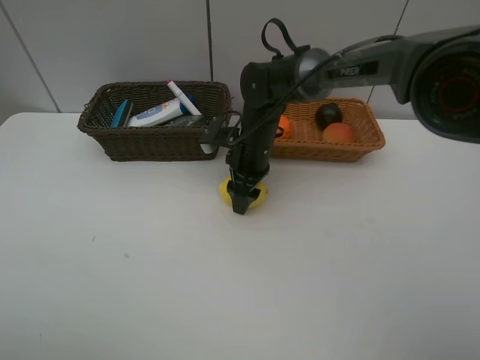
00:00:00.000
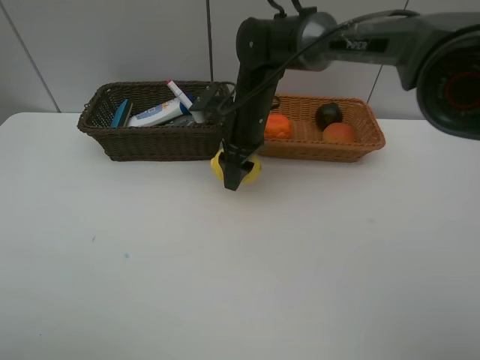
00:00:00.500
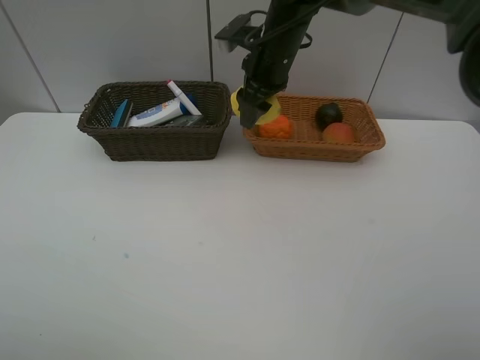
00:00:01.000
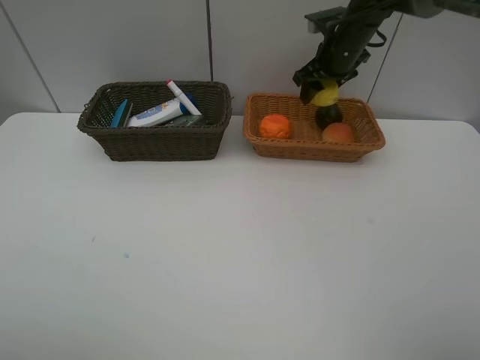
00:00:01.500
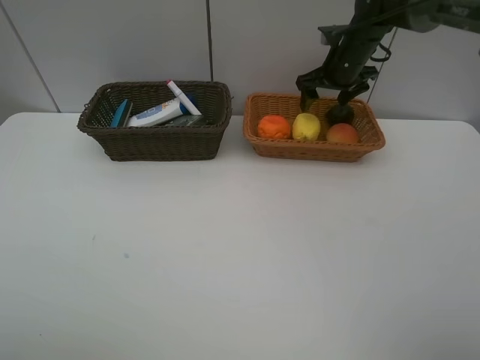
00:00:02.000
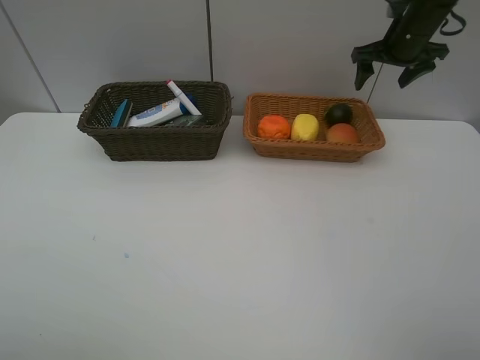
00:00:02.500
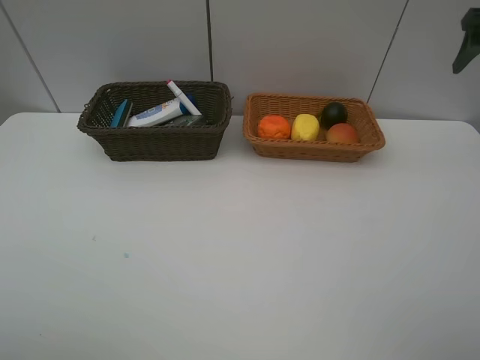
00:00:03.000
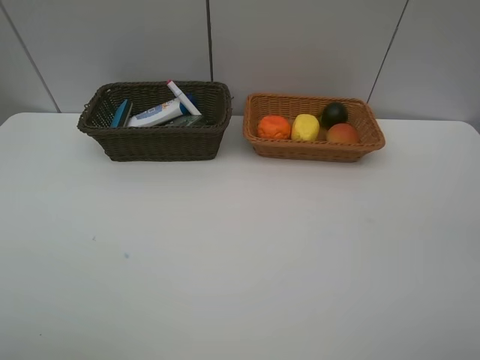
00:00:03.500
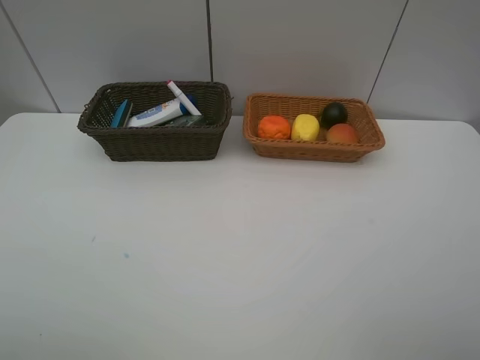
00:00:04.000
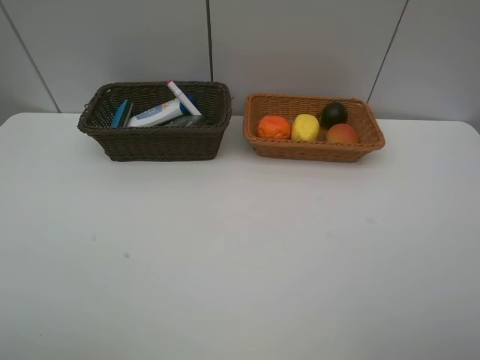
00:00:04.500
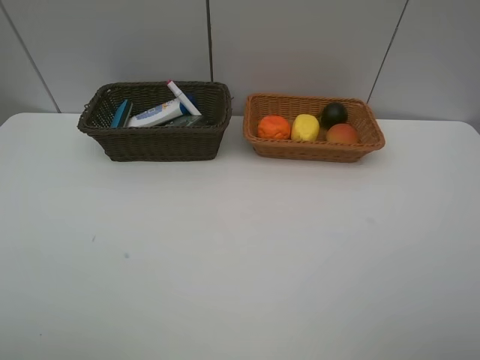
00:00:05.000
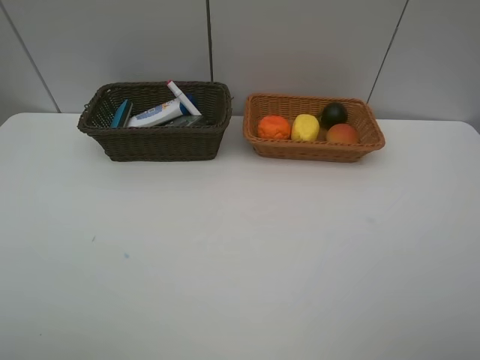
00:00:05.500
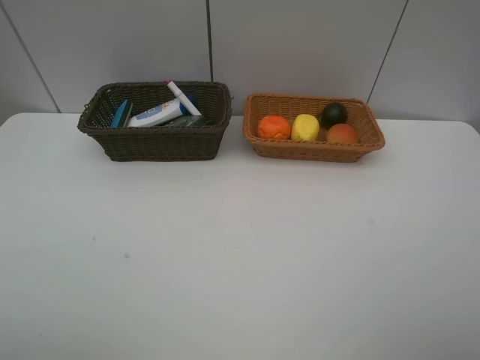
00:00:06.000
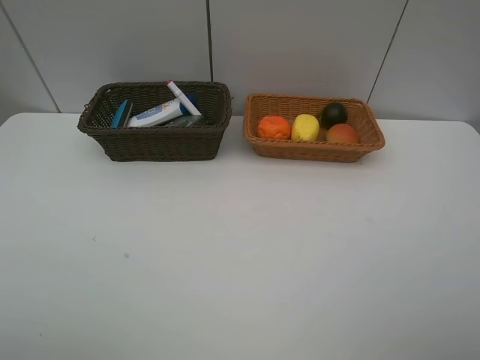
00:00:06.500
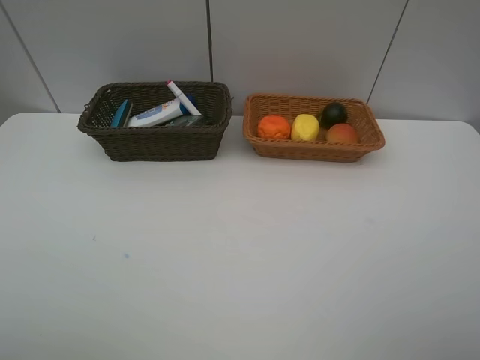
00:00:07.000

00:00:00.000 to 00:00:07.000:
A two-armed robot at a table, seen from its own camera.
Task of the whole recording: Place multiple objects separately in different baskets.
Step, 00:00:01.000 to 00:00:01.500: Place the lemon in the light basket with right gripper.
00:00:00.000 to 00:00:02.000: The right gripper shifts about 25 cm to the right, forward and upward.
00:00:02.000 to 00:00:03.500: The right gripper heads backward, upward and to the right, covering about 40 cm.
00:00:05.000 to 00:00:07.000: The two grippers keep their place.

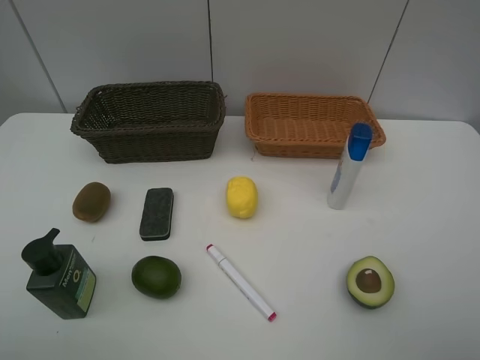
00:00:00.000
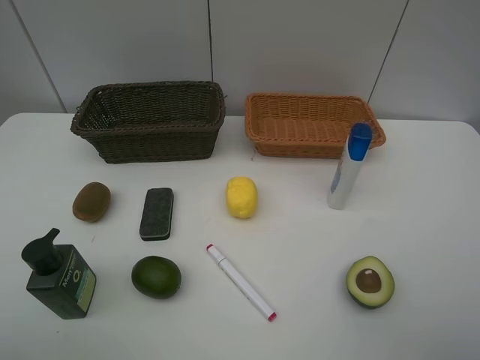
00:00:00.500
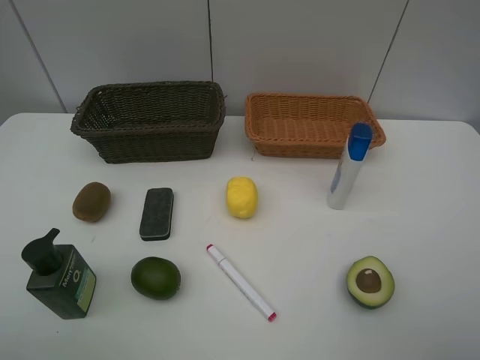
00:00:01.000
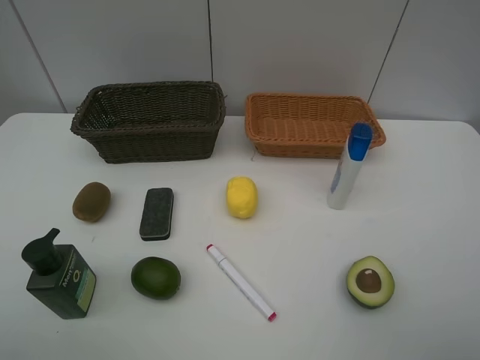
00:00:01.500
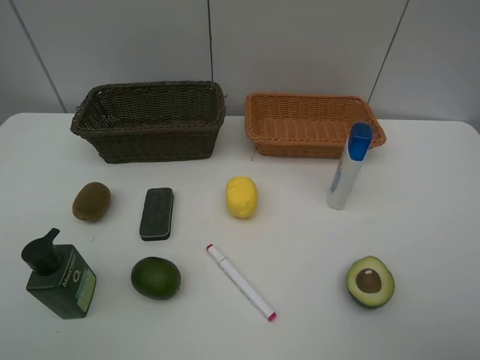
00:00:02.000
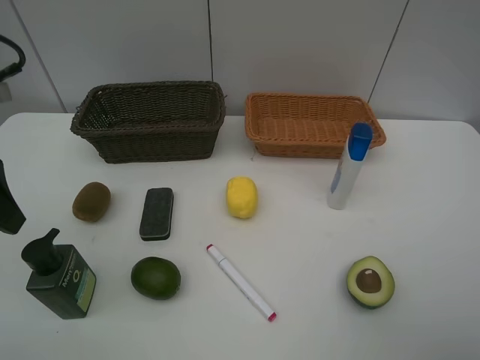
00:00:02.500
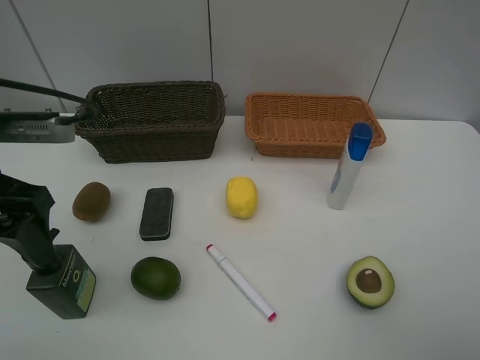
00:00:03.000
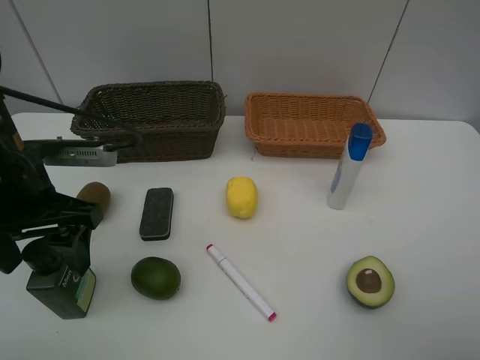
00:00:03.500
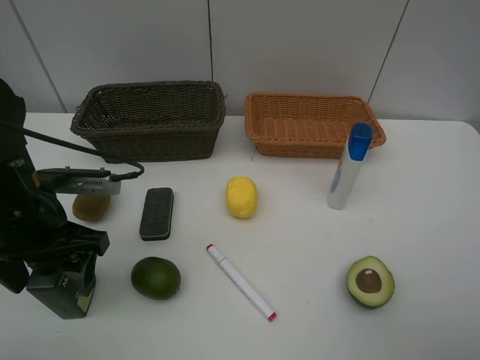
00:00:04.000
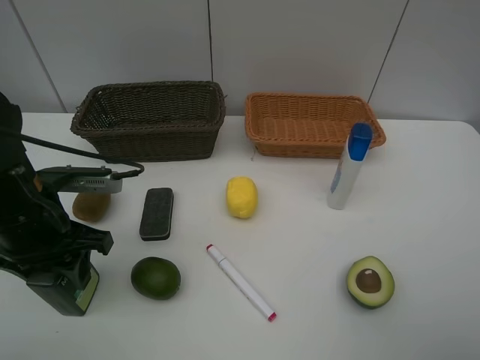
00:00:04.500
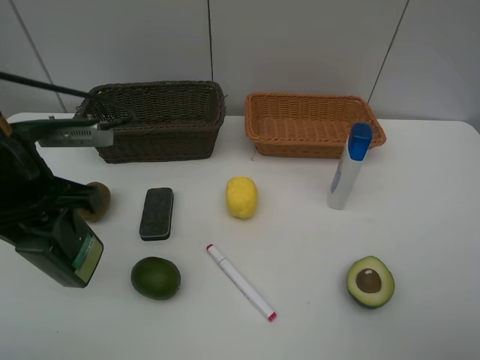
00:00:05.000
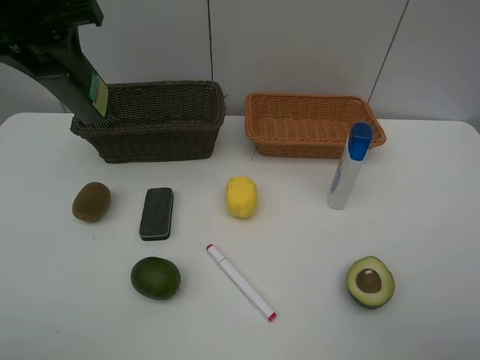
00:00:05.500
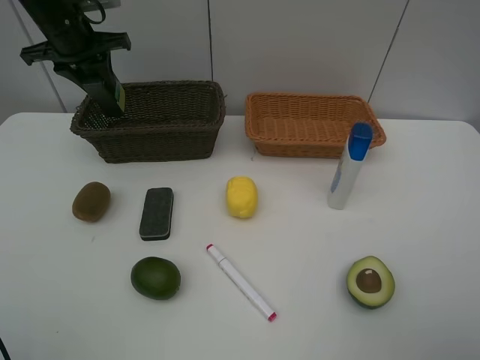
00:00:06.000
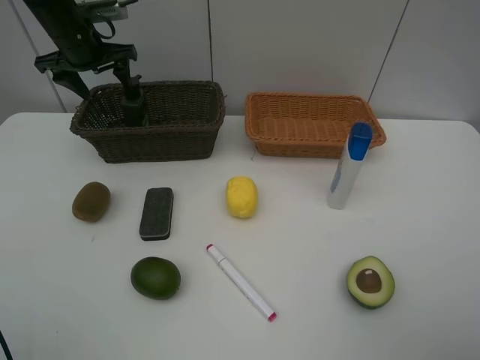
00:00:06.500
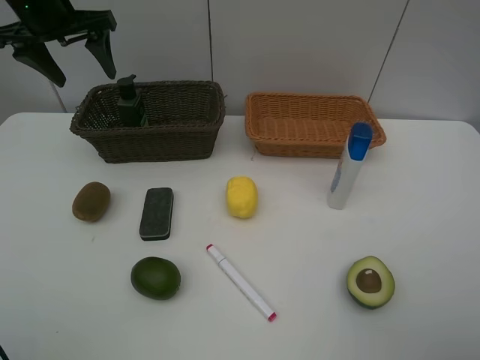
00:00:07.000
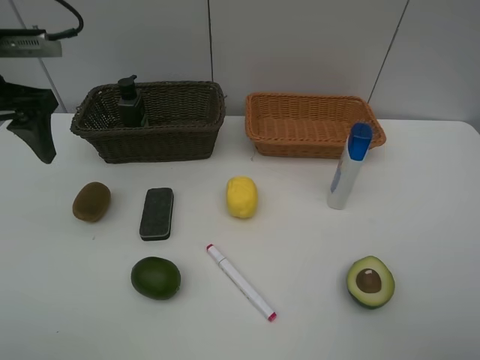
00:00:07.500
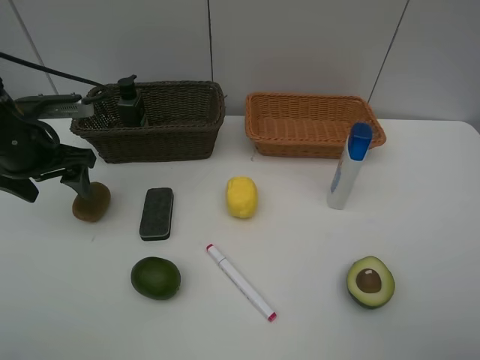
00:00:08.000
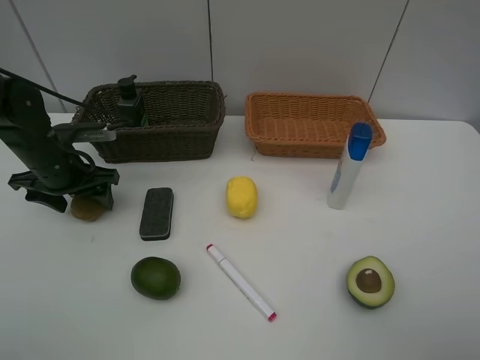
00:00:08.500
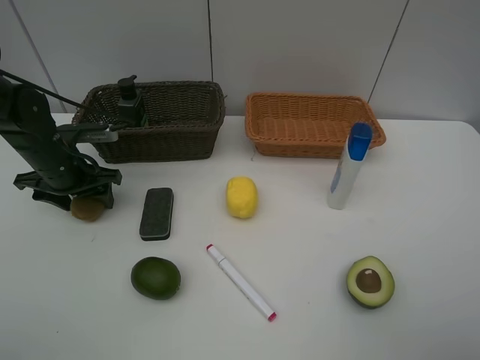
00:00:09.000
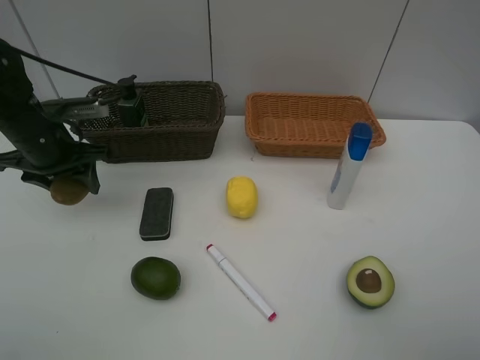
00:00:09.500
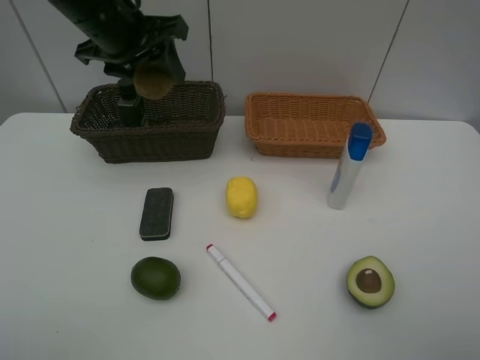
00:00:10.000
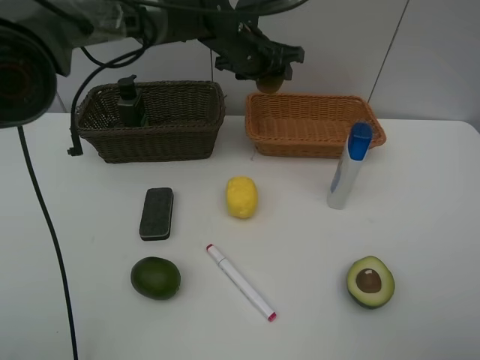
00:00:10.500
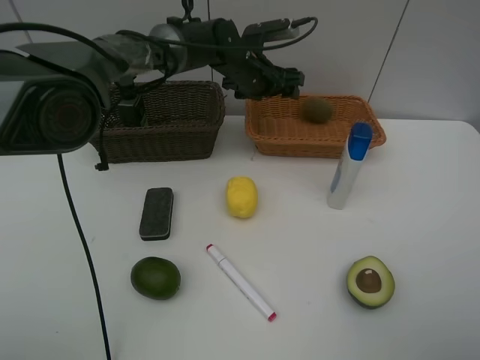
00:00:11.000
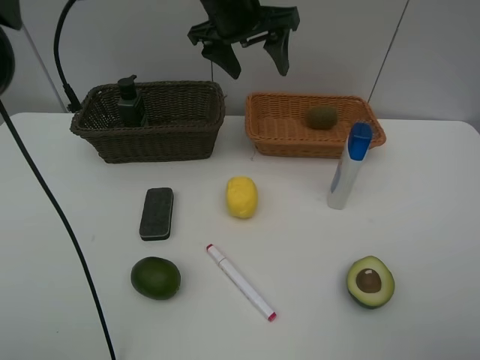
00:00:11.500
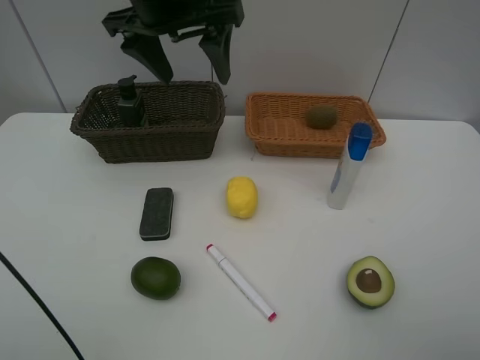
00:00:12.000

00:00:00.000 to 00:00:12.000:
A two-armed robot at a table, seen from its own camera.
Task of the whole recording: Place multiple objects separately in different baskets.
Step, 00:00:00.000 to 00:00:04.500: Pick up the hard facial cleanser with left gripper.
Step, 00:00:05.000 to 00:00:06.500: Place the hard facial cleanser in the dark basket with left gripper.
Step, 00:00:07.000 to 00:00:09.500: Pick up kiwi with left gripper.
Step, 00:00:10.000 to 00:00:11.000: Place the kiwi in the light basket with left gripper.
00:00:02.000 to 00:00:04.000: The left gripper shifts roughly 20 cm downward, to the right and forward.
00:00:04.000 to 00:00:06.000: The left gripper heads forward, covering some 25 cm, and closes.
00:00:06.000 to 00:00:08.000: The left gripper goes approximately 20 cm backward and downward, and opens up.
00:00:08.000 to 00:00:10.000: The left gripper travels to the right, upward and forward by some 20 cm, and closes.
00:00:10.000 to 00:00:12.000: The left gripper travels downward and back again, roughly 15 cm each way, and opens up.

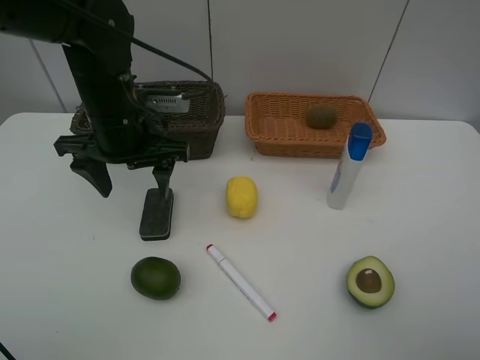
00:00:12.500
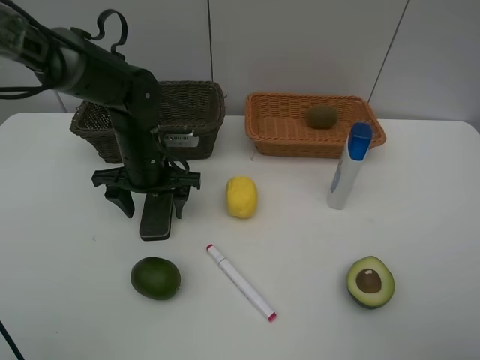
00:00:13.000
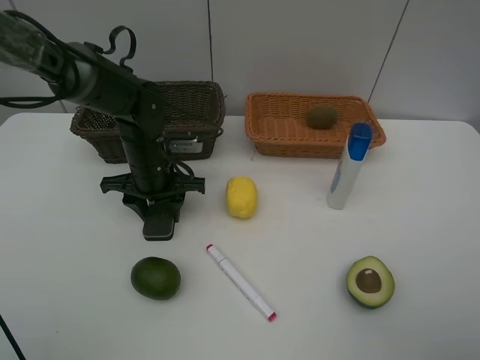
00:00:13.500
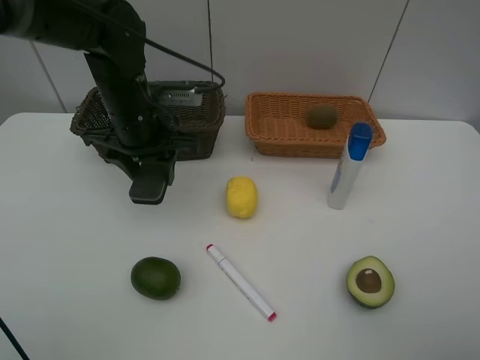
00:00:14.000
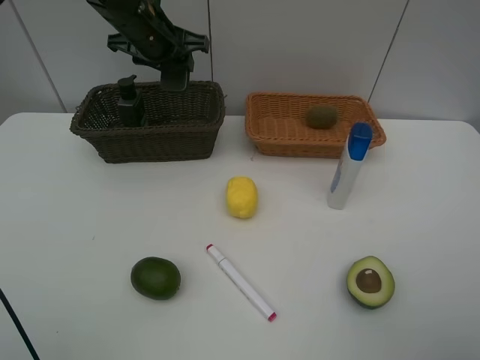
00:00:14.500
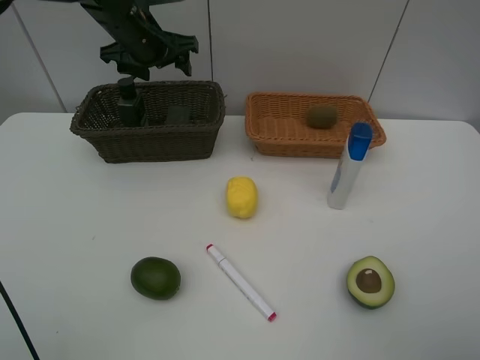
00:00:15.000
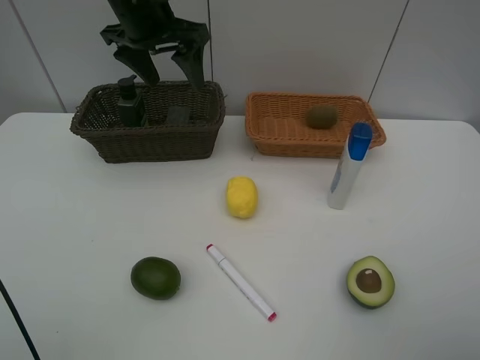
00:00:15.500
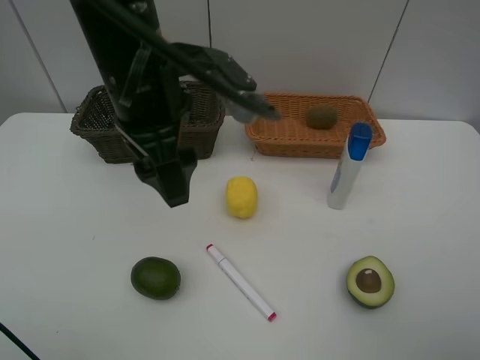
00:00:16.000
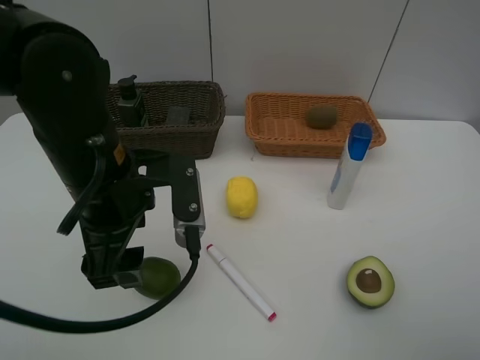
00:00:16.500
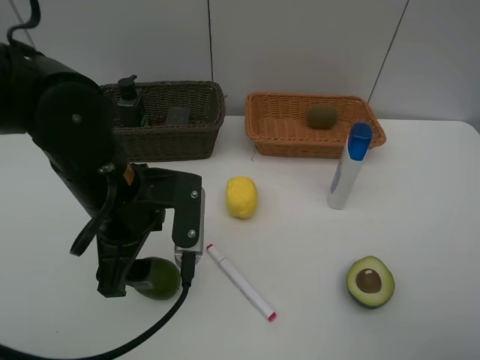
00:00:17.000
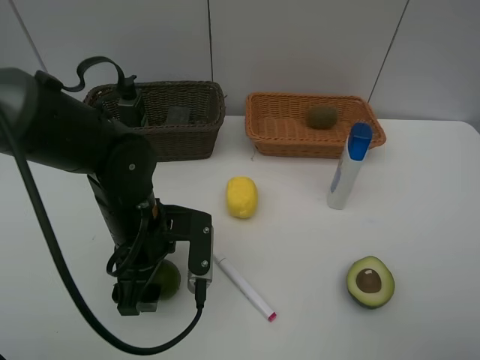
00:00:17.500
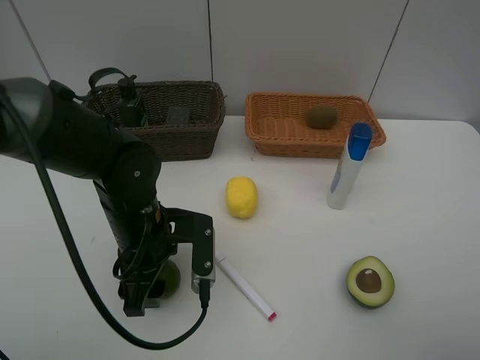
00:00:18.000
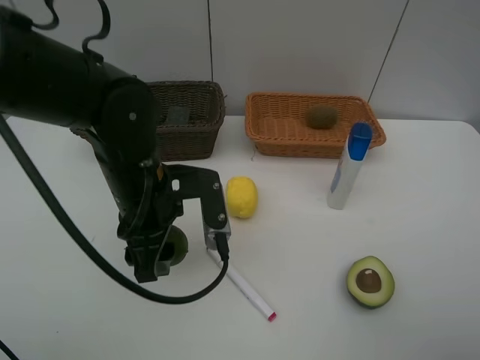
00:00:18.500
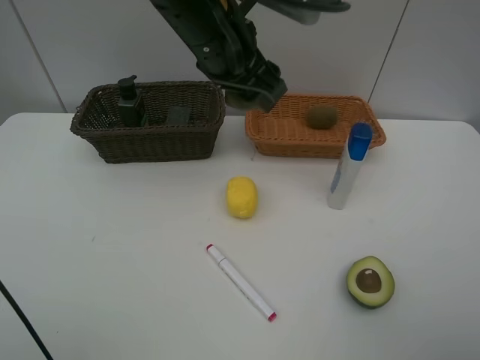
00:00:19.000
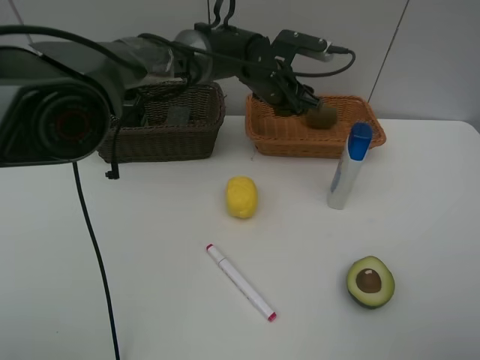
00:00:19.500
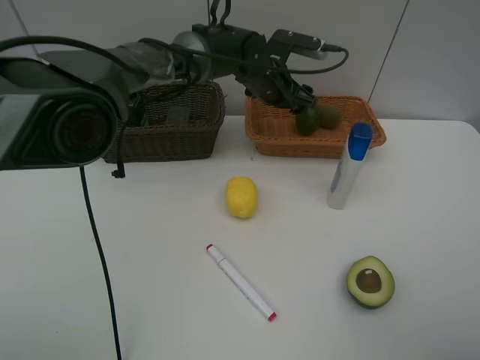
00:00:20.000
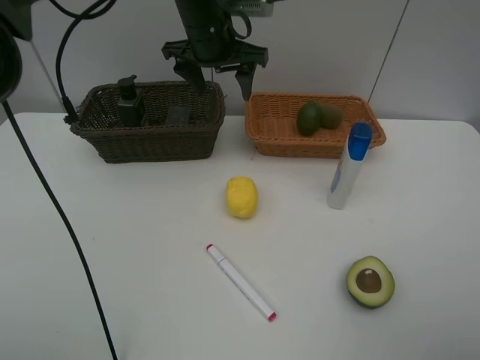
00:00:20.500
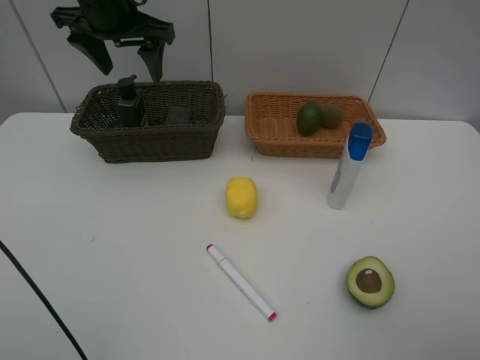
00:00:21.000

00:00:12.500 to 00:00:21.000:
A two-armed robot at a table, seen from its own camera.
Task of the whole recording: Place multiple objects separately in different baskets.
Step, 00:00:14.000 to 00:00:15.000: Place the blackboard eraser in the dark basket with left gripper.
Step, 00:00:15.500 to 00:00:18.000: Pick up the lemon with left gripper.
Step, 00:00:18.500 to 00:00:19.500: Place the lemon in the light basket with left gripper.
00:00:12.500 to 00:00:14.500: The left gripper heads forward, covering about 15 cm, goes downward and returns, approximately 10 cm each way, and closes.
00:00:14.500 to 00:00:16.500: The left gripper heads backward, covering approximately 25 cm, and opens its fingers.
00:00:16.500 to 00:00:19.000: The left gripper goes approximately 20 cm forward, to the right and upward, and closes up.
00:00:19.000 to 00:00:21.000: The left gripper goes about 20 cm to the left, and opens.
